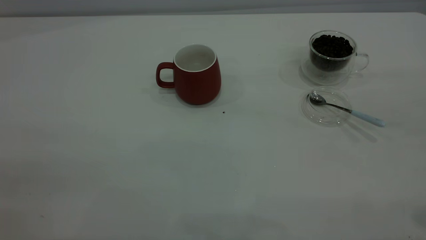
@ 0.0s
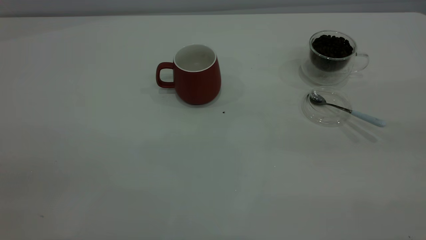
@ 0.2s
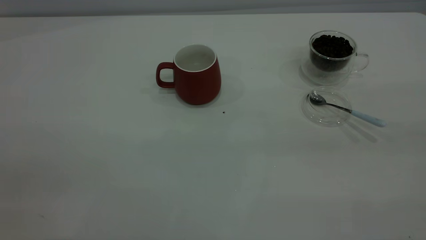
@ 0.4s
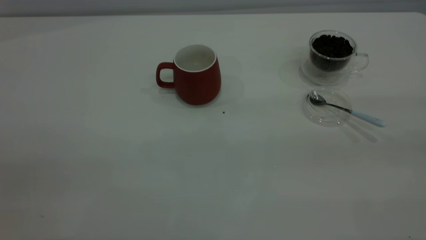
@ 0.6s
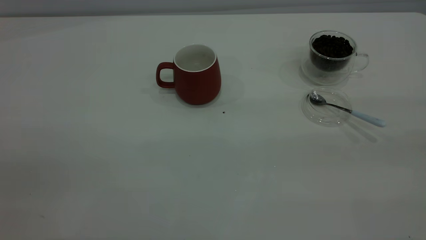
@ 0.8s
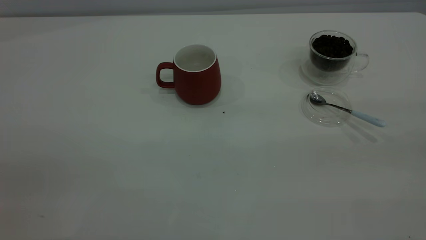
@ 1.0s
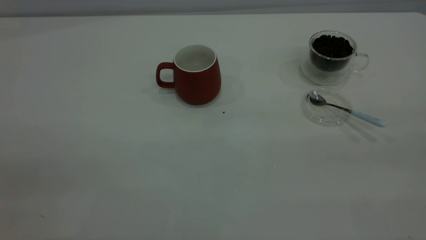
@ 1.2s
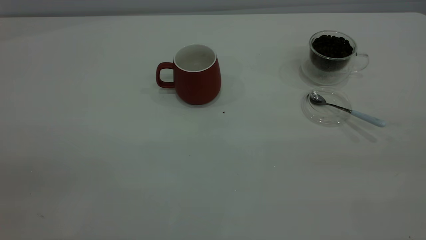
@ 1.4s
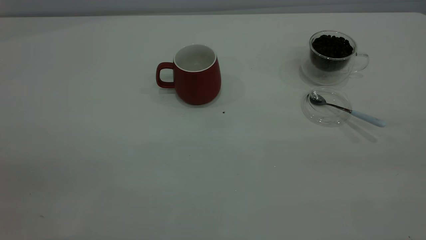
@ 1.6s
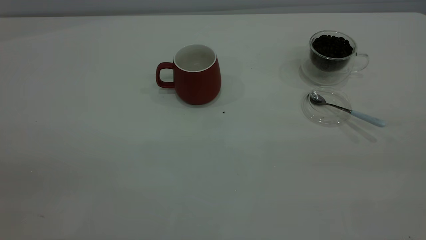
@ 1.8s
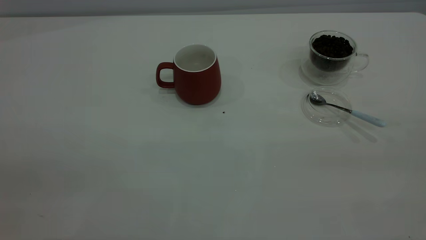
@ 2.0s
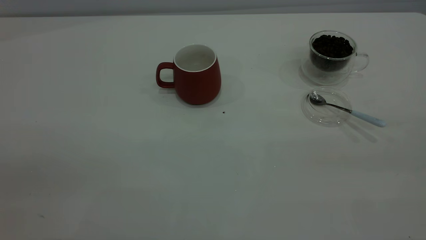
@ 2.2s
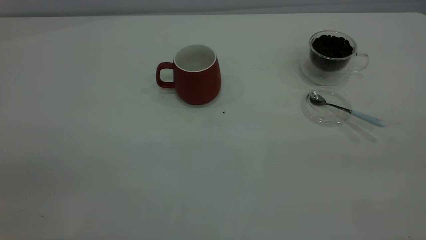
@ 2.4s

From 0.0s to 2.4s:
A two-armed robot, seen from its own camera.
Task of the whole recording: the left gripper place the red cup in the center of the table, the right gripper take the blue spoon from the cup lid and scoop out the coffee beans from the coffee cup and put them into the red cup, the right gripper put the spoon back into the cup lid.
From 1.2s to 2.4s: Neither gripper changes place.
